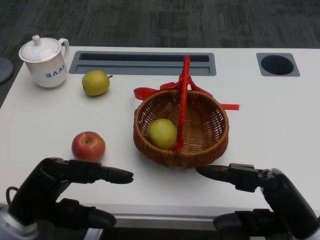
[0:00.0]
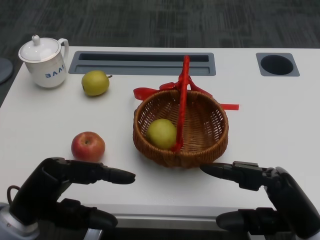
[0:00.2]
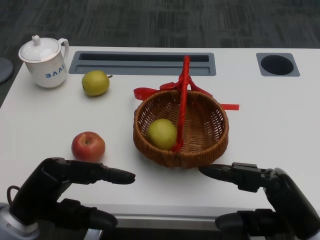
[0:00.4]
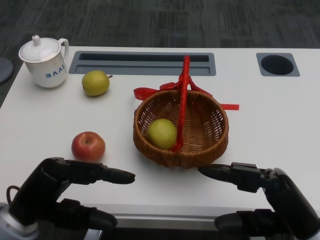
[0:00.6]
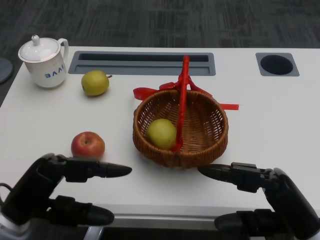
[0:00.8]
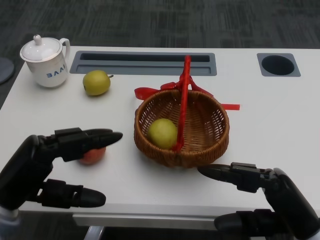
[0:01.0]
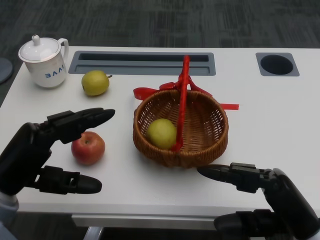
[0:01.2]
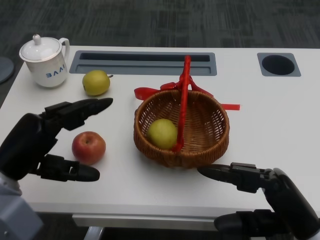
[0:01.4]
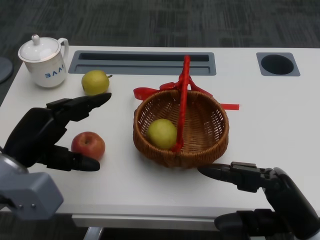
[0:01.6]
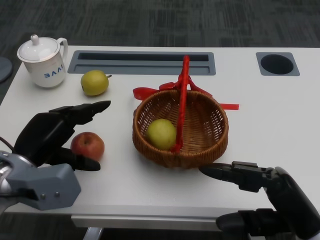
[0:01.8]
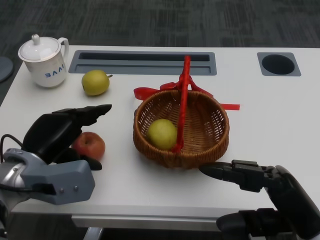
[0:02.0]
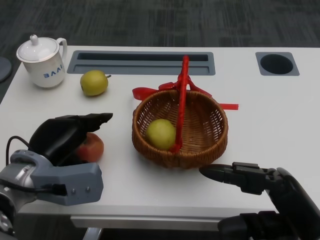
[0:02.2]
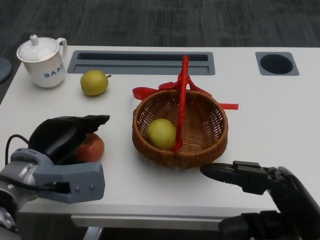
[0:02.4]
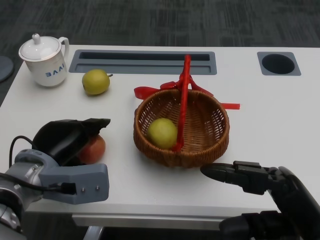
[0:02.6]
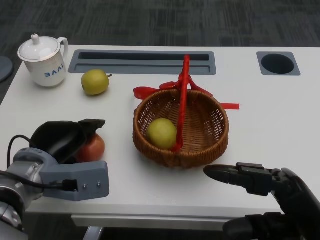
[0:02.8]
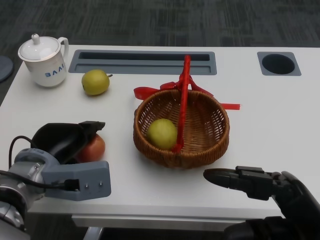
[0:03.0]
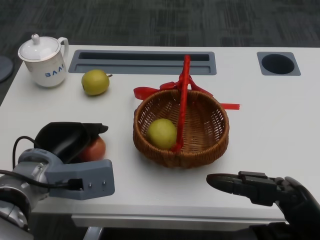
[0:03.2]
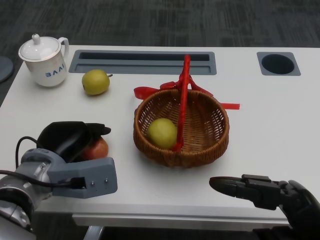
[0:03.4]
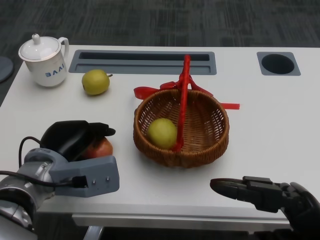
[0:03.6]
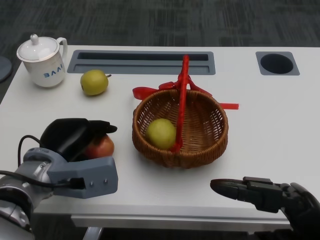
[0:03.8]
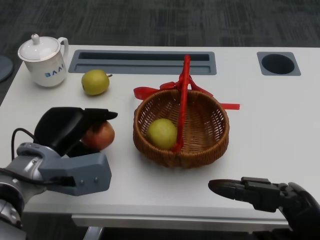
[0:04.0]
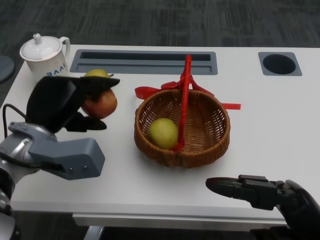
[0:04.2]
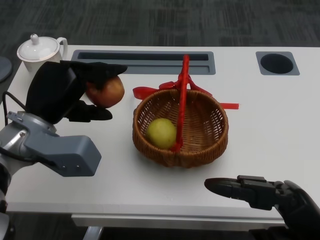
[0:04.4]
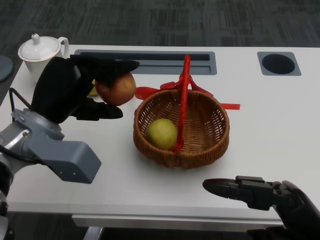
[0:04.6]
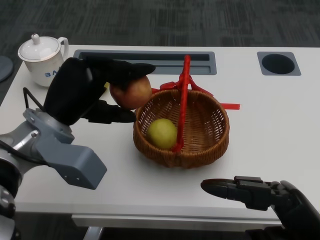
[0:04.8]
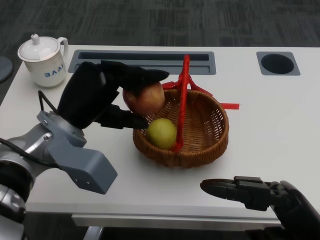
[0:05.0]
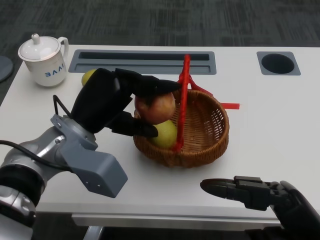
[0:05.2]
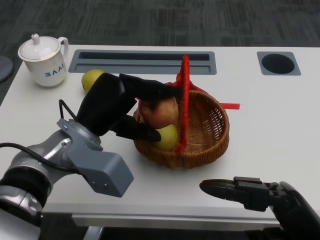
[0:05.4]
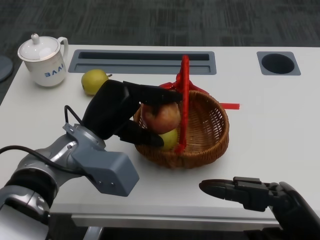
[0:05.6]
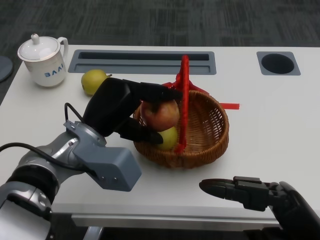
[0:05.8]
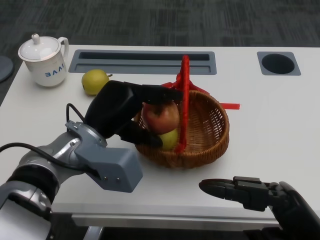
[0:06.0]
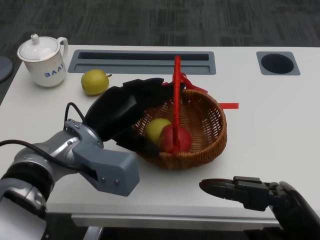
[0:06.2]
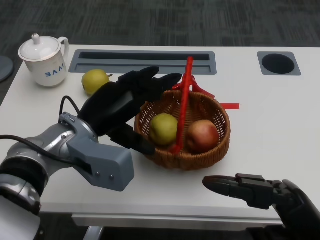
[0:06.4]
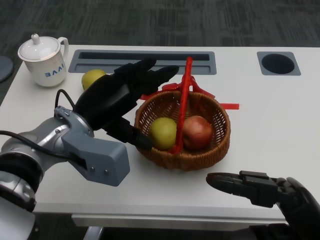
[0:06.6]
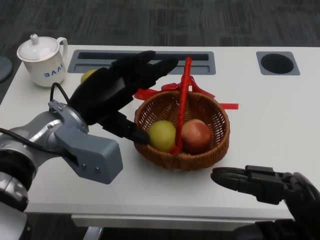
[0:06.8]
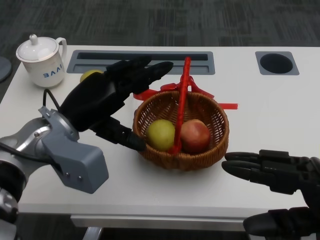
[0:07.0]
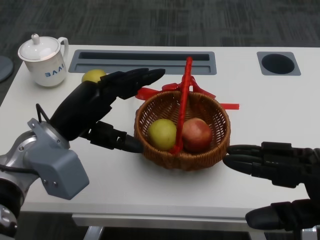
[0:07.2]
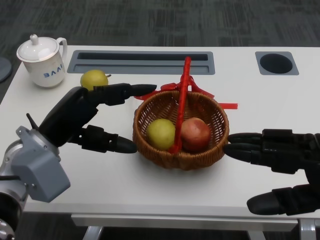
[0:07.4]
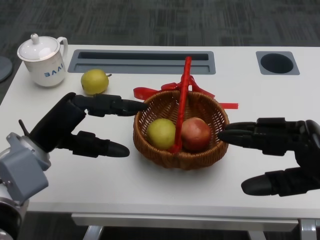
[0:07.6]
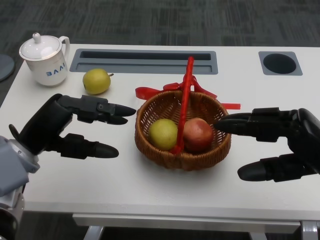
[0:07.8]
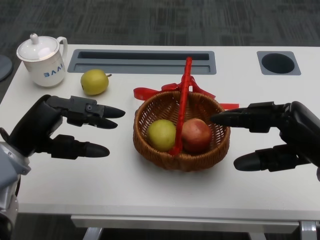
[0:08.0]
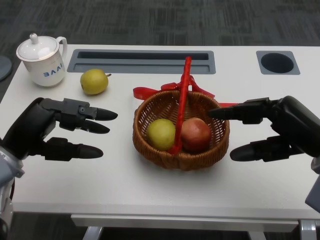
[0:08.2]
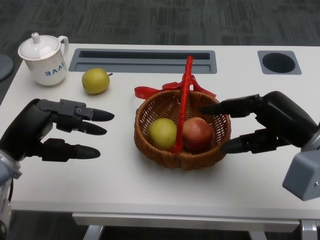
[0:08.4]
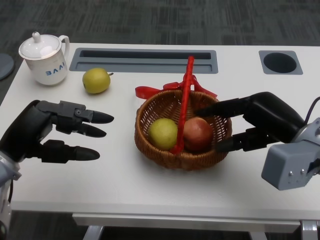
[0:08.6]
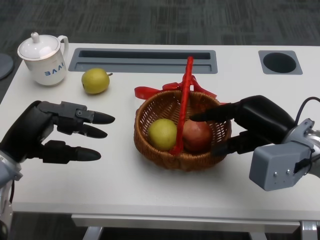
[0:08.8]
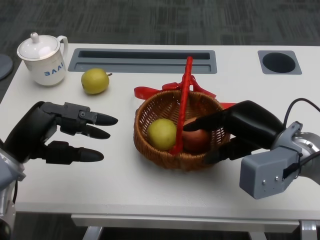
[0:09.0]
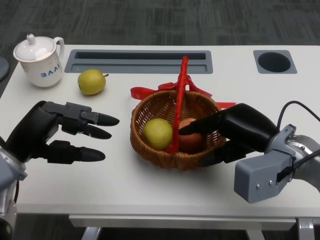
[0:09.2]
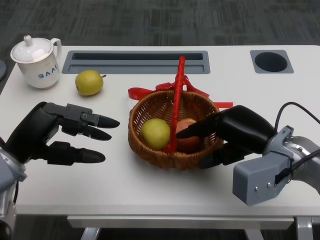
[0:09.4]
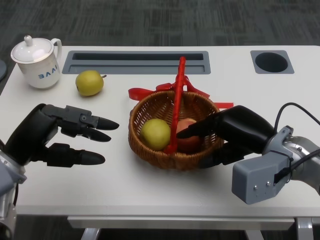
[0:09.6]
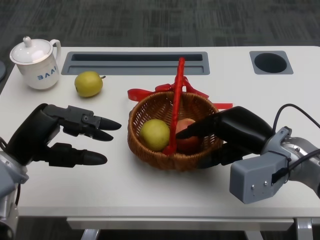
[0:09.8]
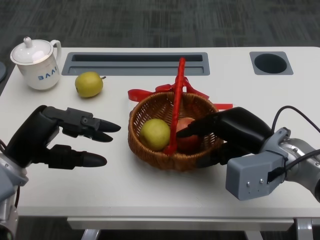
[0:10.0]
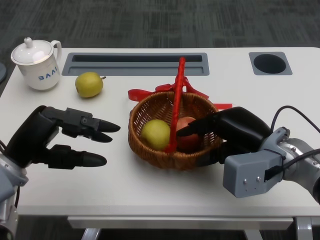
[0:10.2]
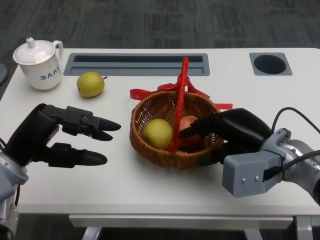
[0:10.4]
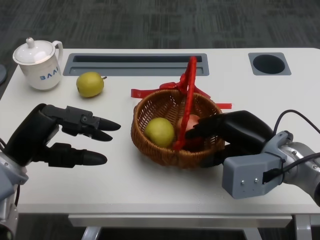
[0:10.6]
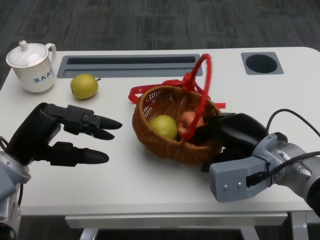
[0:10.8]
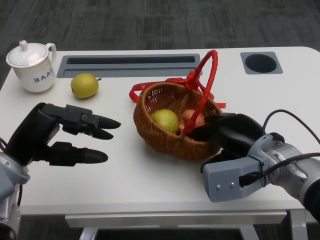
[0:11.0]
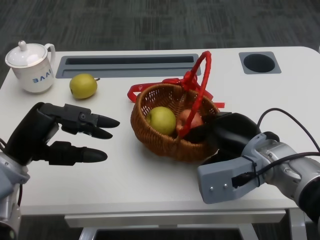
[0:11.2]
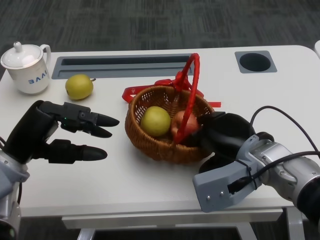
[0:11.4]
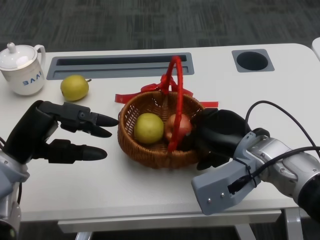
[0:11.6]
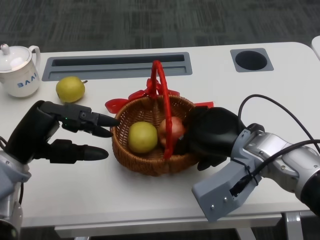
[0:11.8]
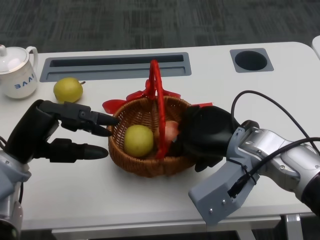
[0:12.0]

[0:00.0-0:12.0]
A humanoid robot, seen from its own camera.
Step, 0:00.6 to 0:02.8: Grasp the apple with the left gripper.
Step, 0:03.0 to 0:05.2: Place the apple into the basket with the left gripper.
Step, 0:05.4 to 0:09.8: Grasp the basket with the right gripper.
0:01.6 to 0:03.0: The left hand changes place by approximately 5 cm.
0:03.0 to 0:04.4: The left hand moves upward, some 5 cm.
0:04.4 to 0:06.0: The left hand travels to the right by approximately 5 cm.
0:06.0 to 0:07.6: The right hand is displaced forward by roughly 5 cm; the left hand travels to the left by roughly 10 cm.
0:07.6 to 0:09.0: The right hand shifts approximately 10 cm forward and to the left.
0:10.4 to 0:12.0: The right hand changes place by approximately 5 cm.

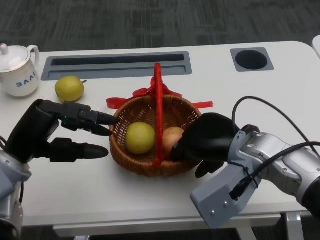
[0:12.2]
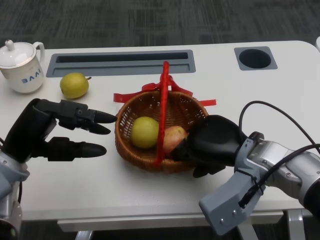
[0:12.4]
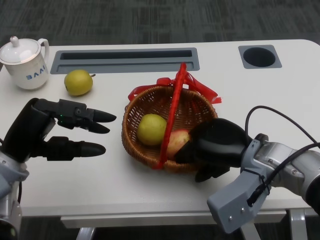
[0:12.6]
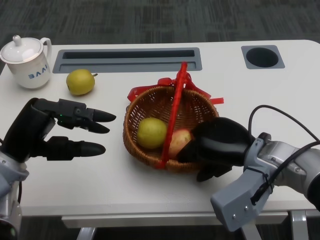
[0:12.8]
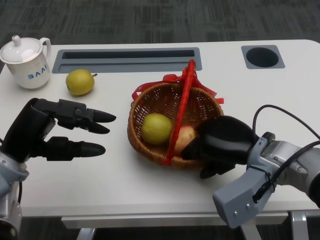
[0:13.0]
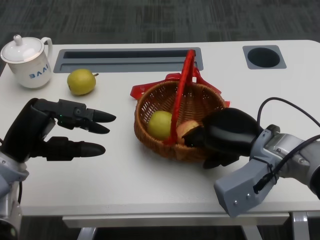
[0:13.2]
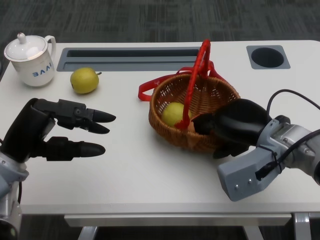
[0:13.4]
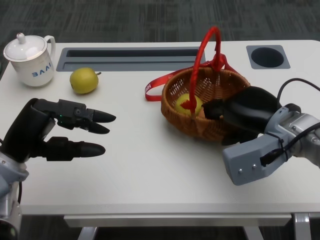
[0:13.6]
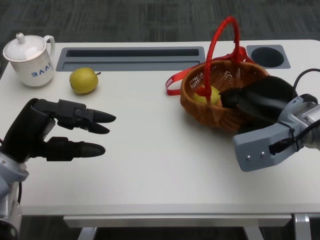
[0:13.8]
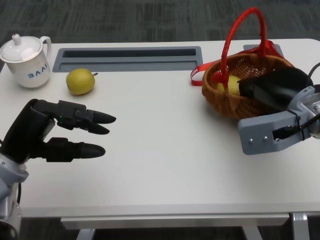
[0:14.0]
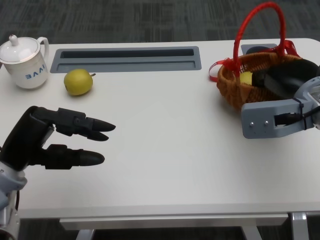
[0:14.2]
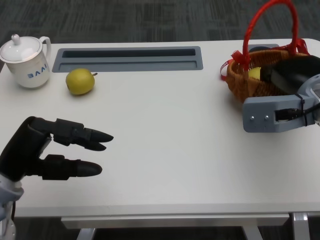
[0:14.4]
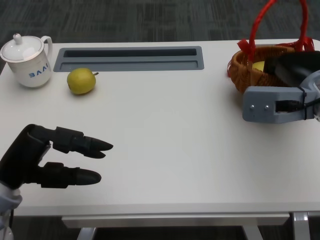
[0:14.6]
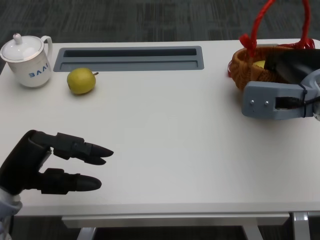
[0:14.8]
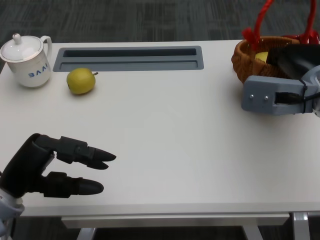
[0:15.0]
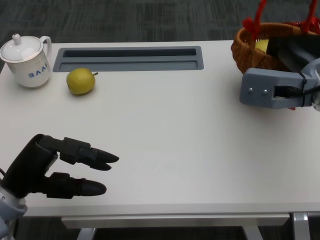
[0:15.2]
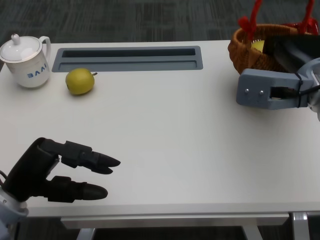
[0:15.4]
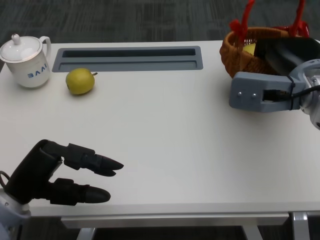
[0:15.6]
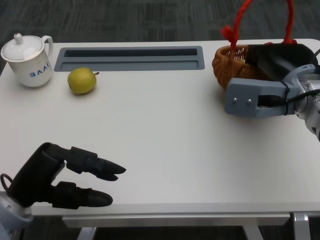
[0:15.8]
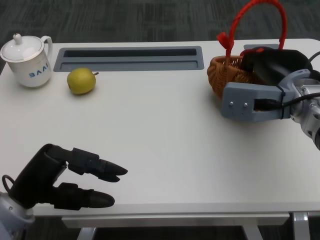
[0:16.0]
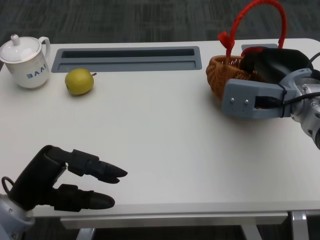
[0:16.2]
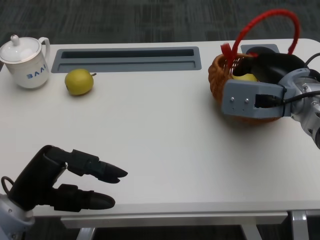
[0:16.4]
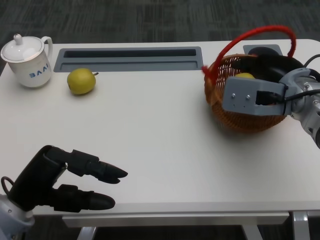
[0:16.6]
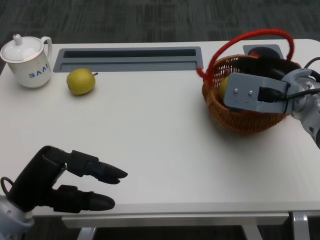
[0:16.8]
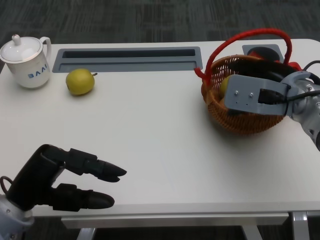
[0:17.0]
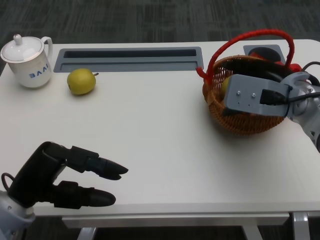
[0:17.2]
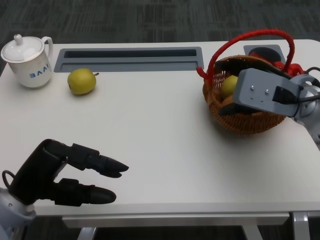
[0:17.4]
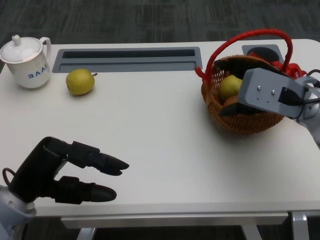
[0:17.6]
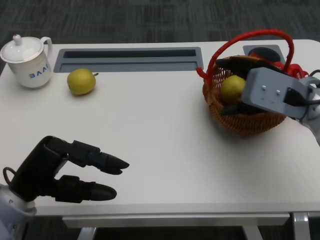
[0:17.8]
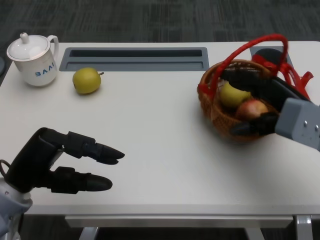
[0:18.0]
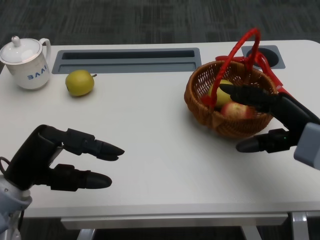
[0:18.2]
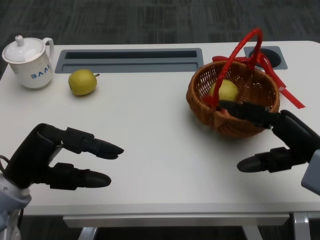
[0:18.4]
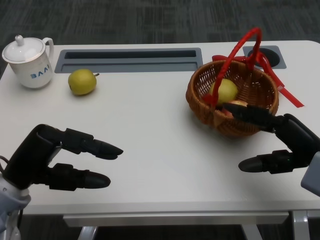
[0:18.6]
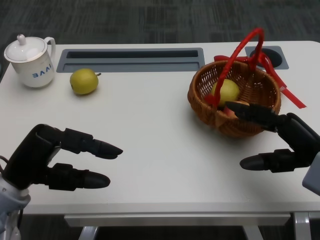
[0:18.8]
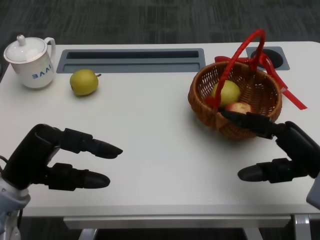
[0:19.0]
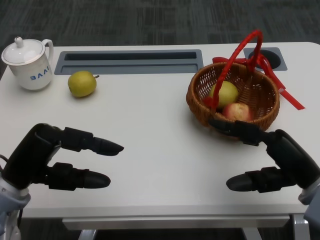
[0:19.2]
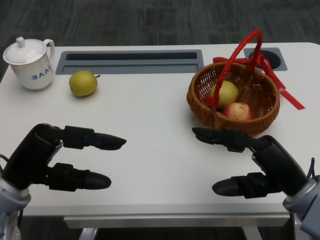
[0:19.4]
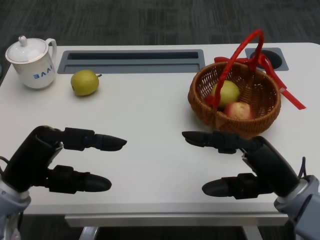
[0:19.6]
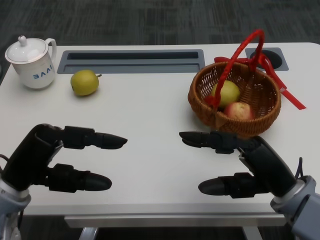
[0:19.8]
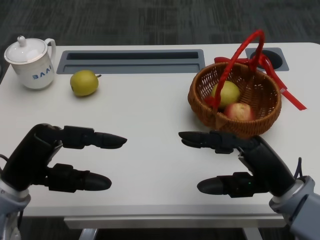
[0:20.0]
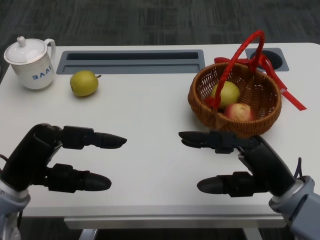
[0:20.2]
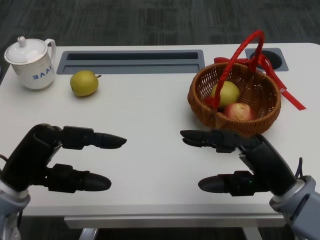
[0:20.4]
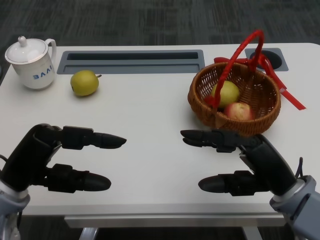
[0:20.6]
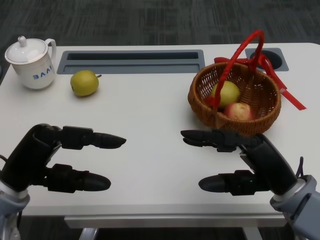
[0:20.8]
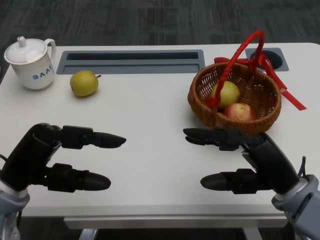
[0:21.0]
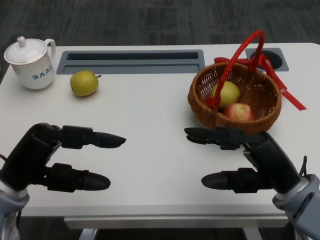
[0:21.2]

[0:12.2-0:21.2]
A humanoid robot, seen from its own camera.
0:12.2 to 0:13.8: The right hand goes roughly 5 cm to the right.
0:13.8 to 0:15.2: The right hand ends up roughly 5 cm from where it was.
0:16.6 to 0:18.2: The right hand moves backward and to the right, about 10 cm.
0:18.2 to 0:19.8: The right hand is displaced backward by about 5 cm.
0:19.8 to 0:21.2: Both hands stay about where they are.
